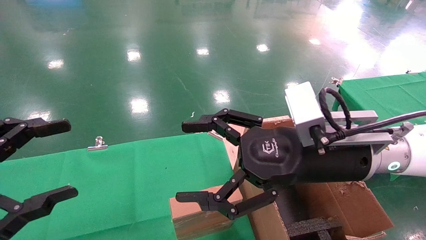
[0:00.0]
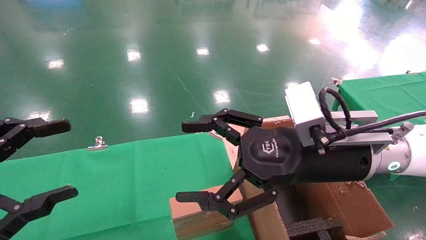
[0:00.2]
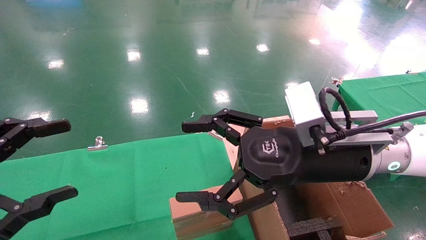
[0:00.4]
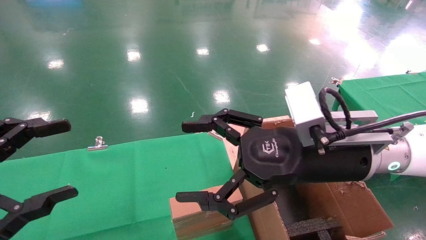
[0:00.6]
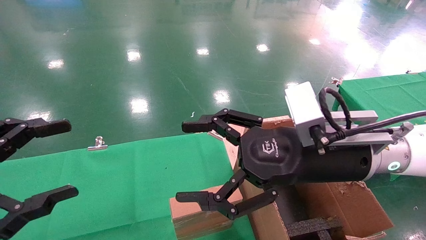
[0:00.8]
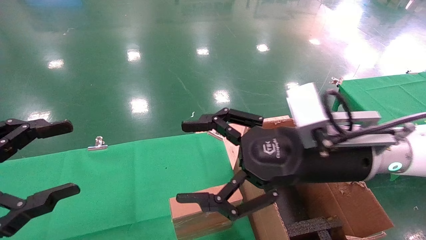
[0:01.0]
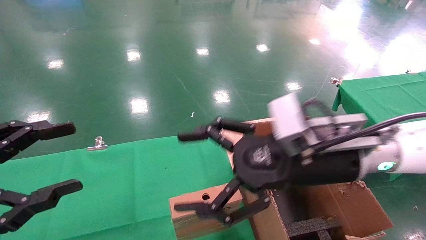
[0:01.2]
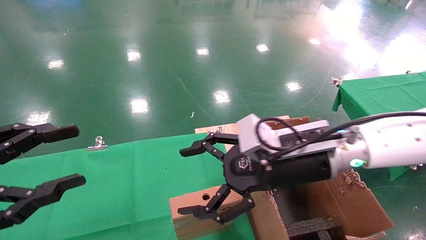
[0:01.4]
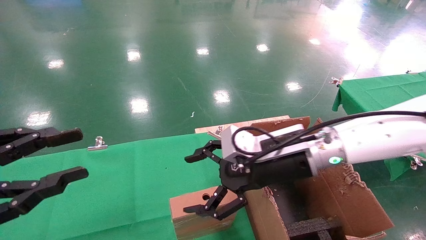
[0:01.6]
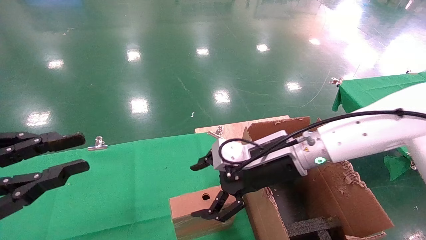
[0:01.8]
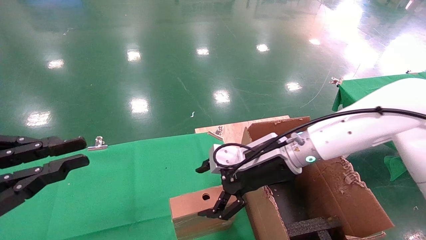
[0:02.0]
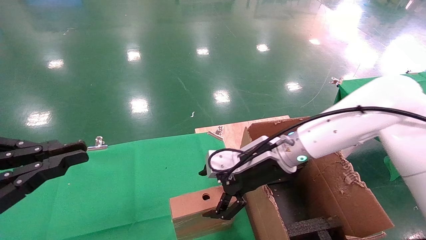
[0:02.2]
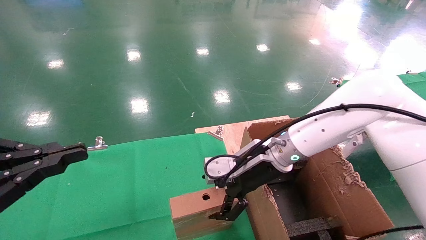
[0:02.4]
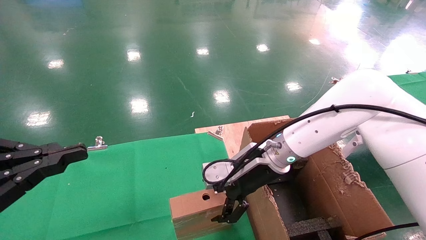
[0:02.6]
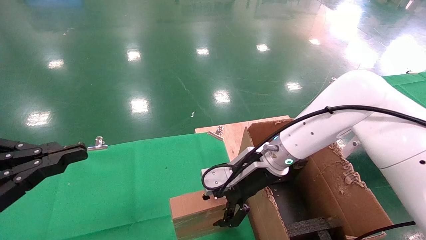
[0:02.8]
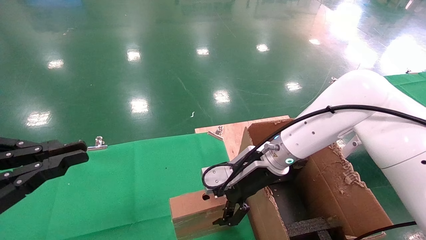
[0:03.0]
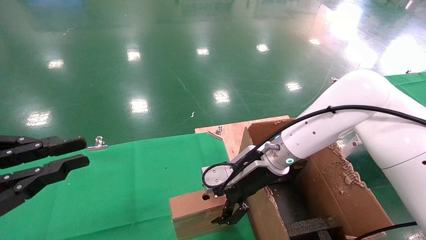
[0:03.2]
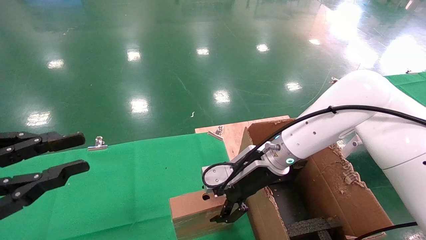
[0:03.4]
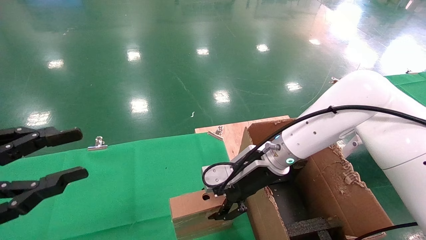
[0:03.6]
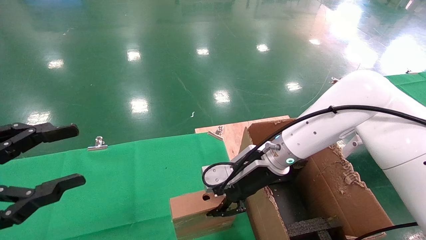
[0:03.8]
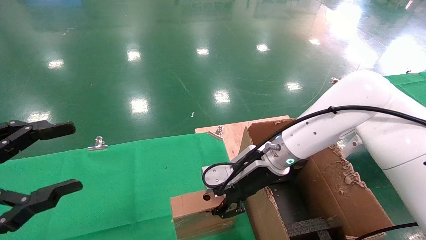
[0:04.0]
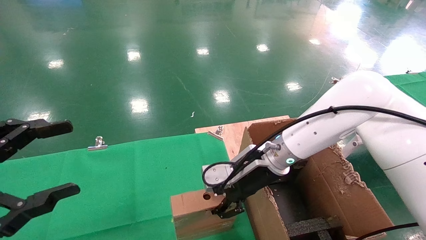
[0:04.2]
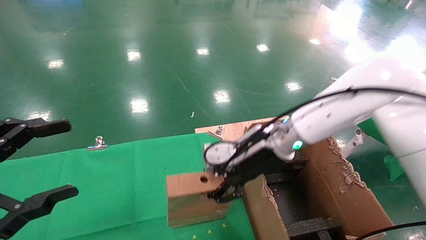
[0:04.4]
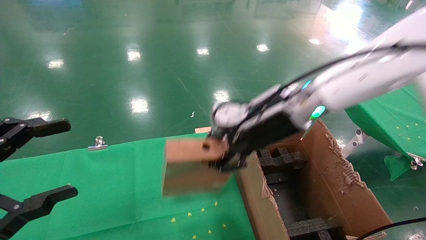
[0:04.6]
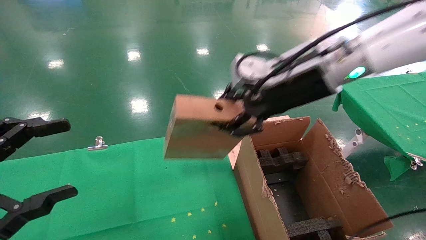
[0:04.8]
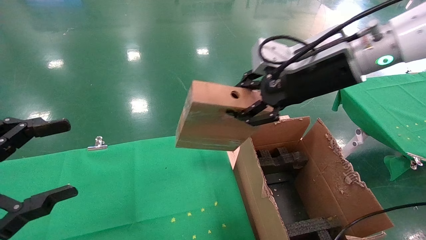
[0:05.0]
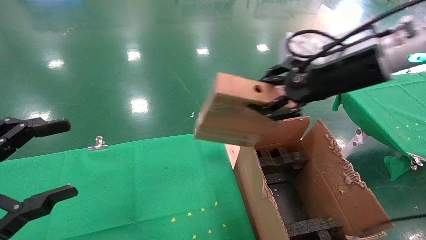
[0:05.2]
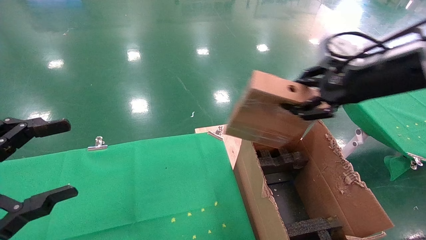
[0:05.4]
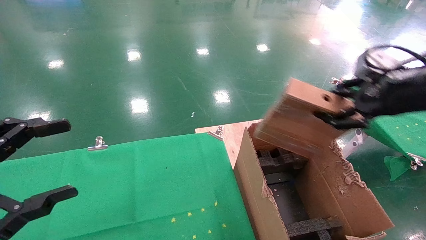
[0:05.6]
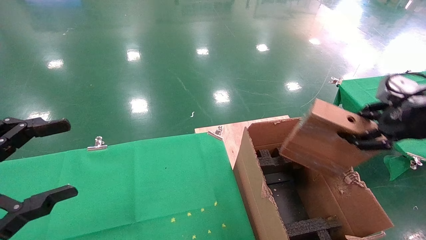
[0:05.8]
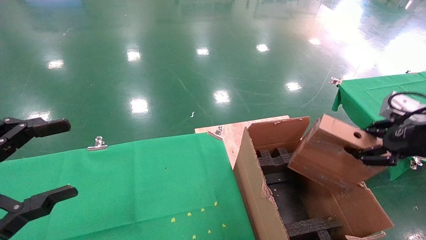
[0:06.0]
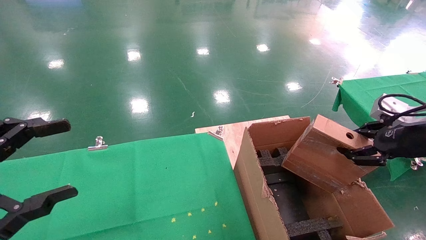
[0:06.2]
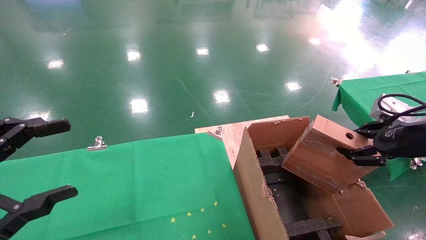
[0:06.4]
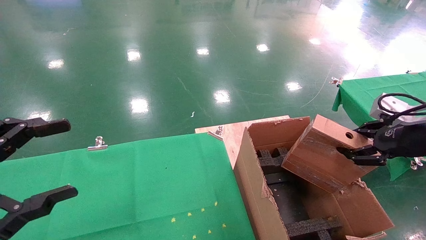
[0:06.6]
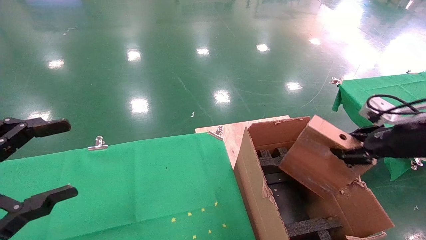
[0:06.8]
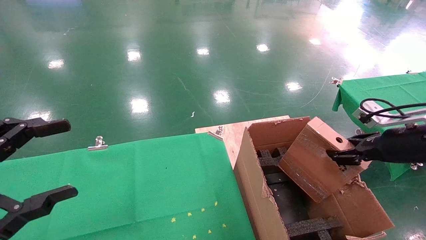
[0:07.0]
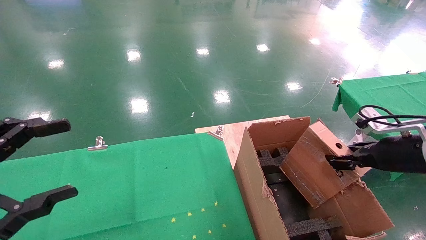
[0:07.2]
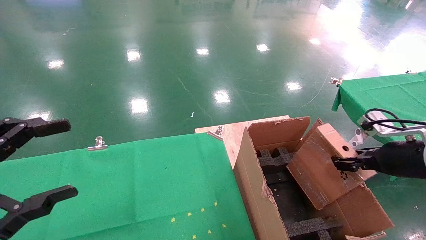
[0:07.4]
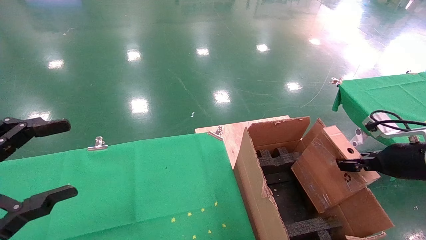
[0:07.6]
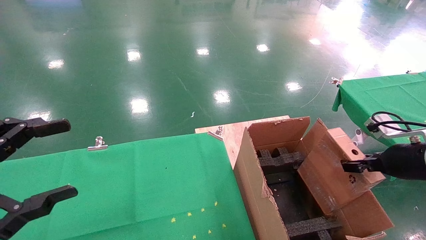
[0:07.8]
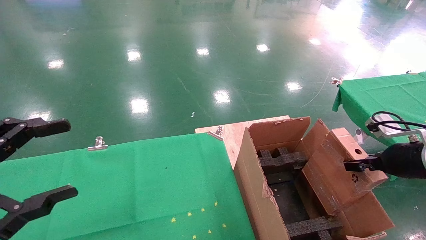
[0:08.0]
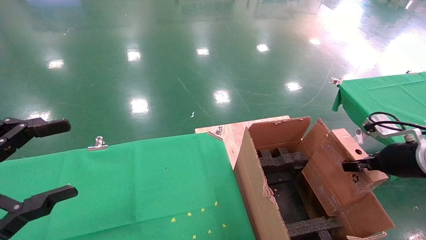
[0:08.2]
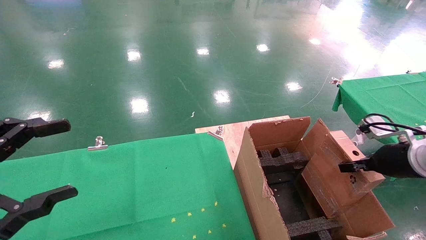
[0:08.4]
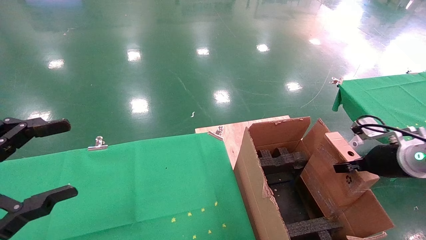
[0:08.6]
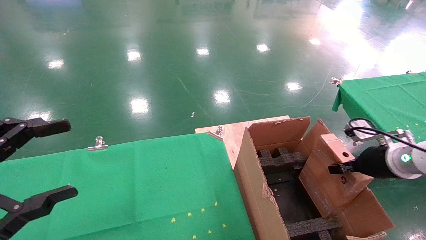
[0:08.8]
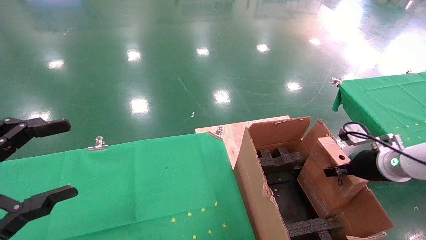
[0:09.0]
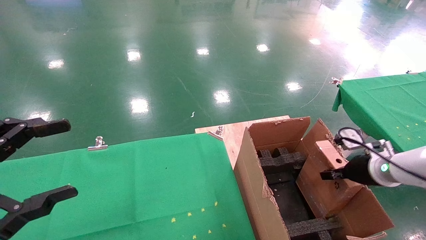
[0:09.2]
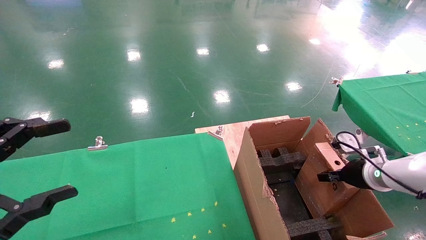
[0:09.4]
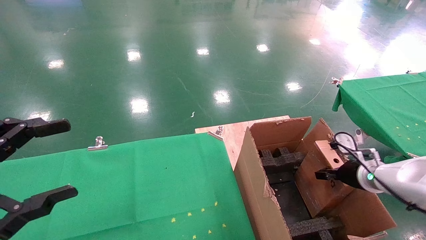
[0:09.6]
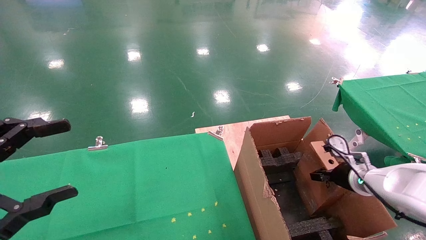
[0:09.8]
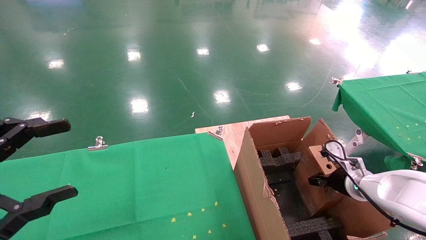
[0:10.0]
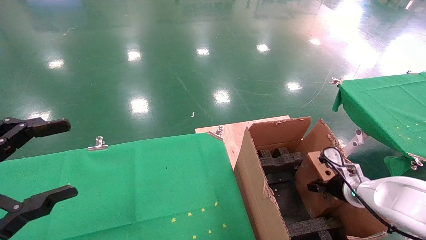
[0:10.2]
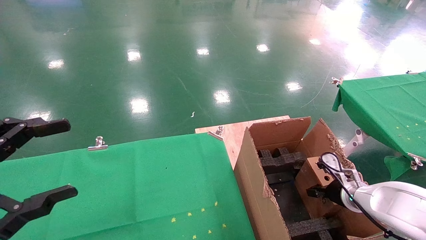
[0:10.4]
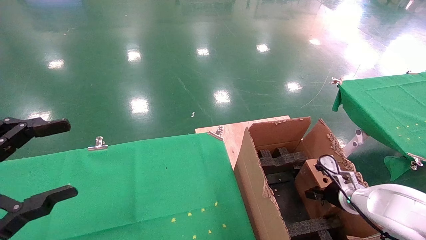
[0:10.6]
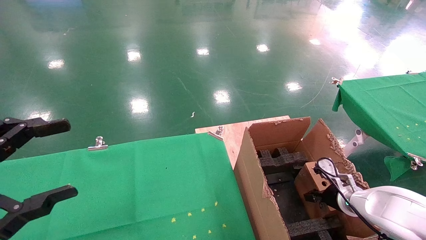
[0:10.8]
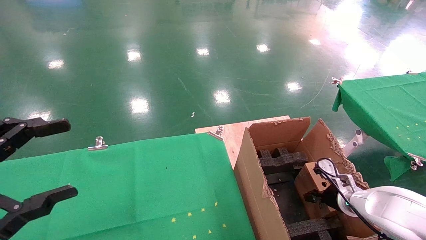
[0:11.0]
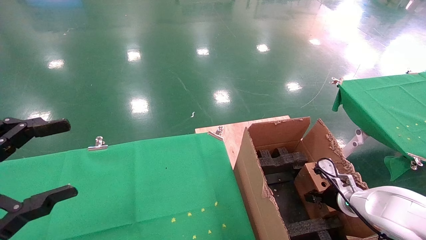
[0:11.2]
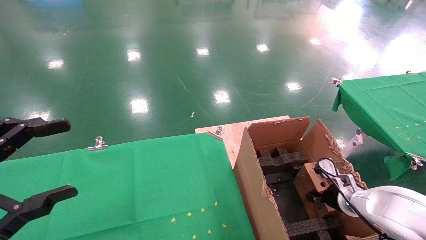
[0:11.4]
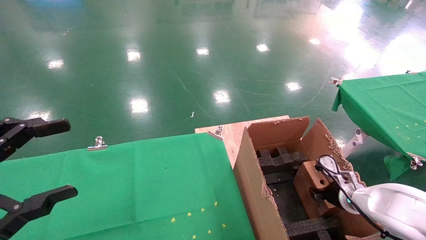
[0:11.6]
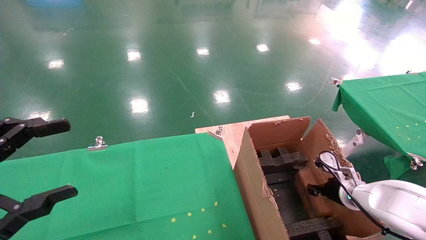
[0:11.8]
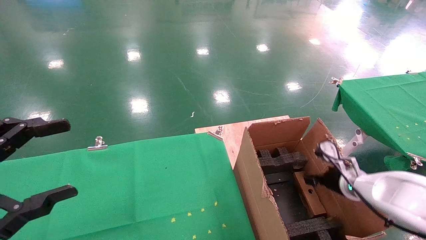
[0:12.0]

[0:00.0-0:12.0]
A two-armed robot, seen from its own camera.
Task of the whole recording: using a robotic arm to pick up a cardboard box and palace it the carton.
Step, 0:01.2 to 0:03.8: Pick up the mouse and the power cord paper box.
0:00.0 to 0:01.6: The right gripper goes roughly 5 cm forward. The left gripper closes.
0:01.6 to 0:03.0: The left gripper closes up, while the right gripper shifts about 5 cm forward.
0:03.0 to 0:04.4: The right gripper moves upward, roughly 5 cm, and closes its fingers. Meanwhile the left gripper opens up.
0:04.4 to 0:06.0: The right gripper shifts some 30 cm to the right and backward.
0:06.0 to 0:07.6: The right gripper moves downward, some 10 cm.
0:07.6 to 0:09.0: The right gripper heads forward, covering about 5 cm.
0:09.0 to 0:10.4: The right gripper shifts about 10 cm downward.
0:10.4 to 0:12.0: The right gripper changes place by some 5 cm, and opens.

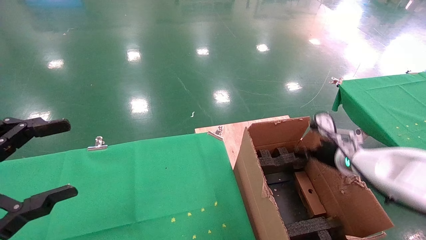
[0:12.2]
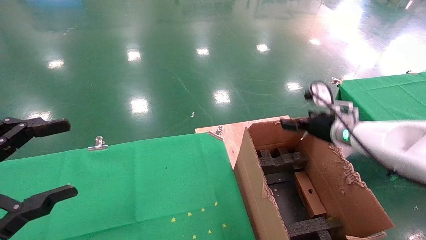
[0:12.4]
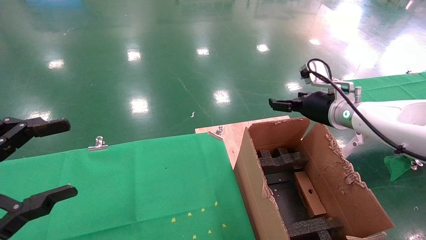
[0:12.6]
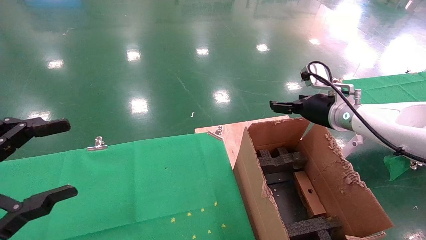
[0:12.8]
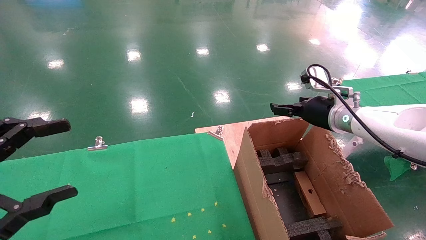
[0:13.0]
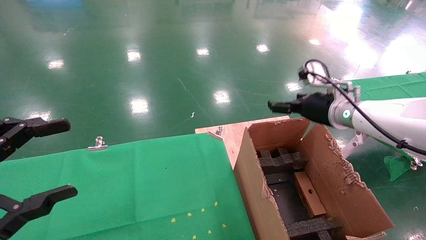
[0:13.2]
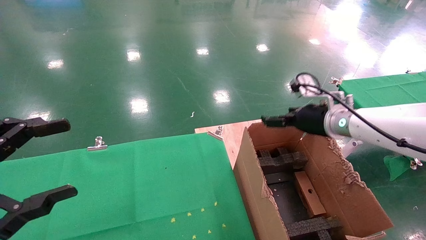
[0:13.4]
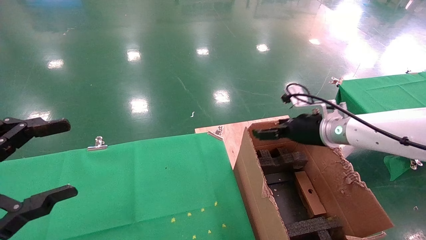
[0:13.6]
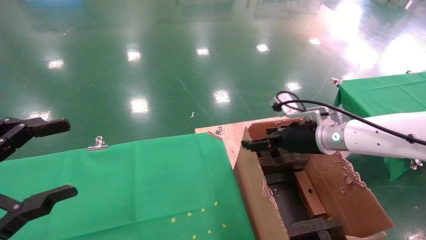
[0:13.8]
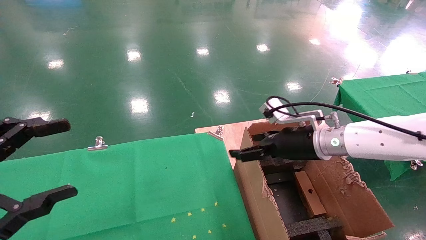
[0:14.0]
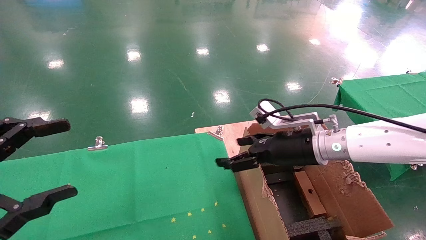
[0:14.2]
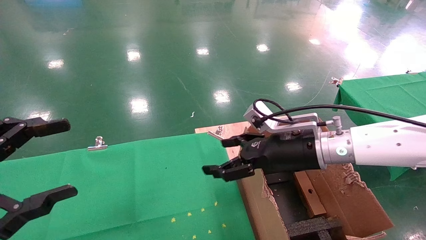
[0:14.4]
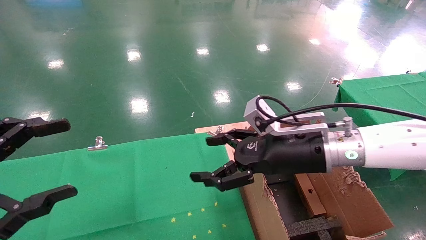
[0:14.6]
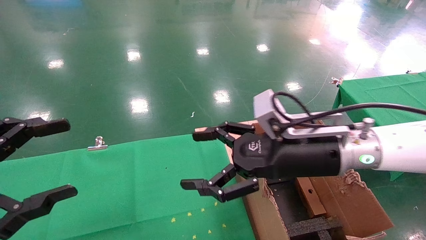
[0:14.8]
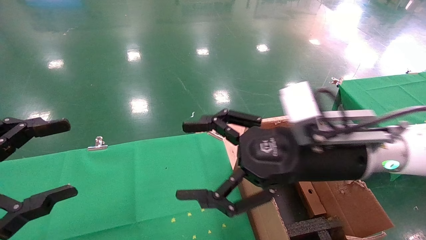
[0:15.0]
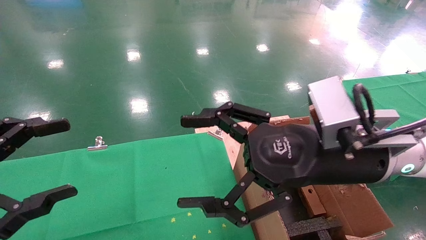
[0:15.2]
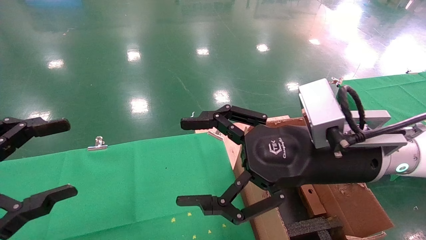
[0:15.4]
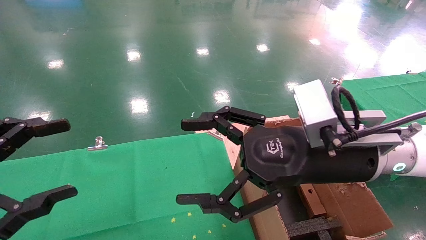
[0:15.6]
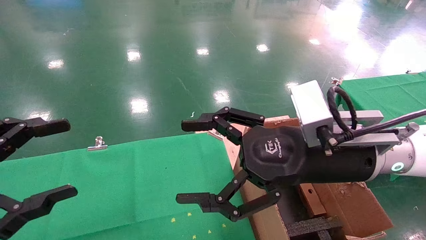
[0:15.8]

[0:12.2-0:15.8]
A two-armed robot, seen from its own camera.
Task of the whole recording: using a robotic arm to pick up a cardboard box and palace it the carton.
0:12.2 to 0:14.0: The right gripper shifts roughly 10 cm to the left and upward.
0:14.0 to 0:15.8: The right gripper goes approximately 15 cm backward, upward and to the left.

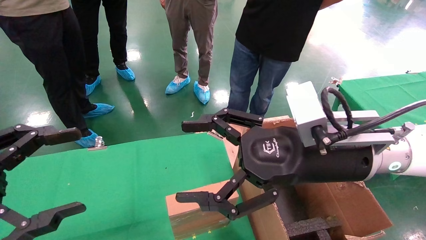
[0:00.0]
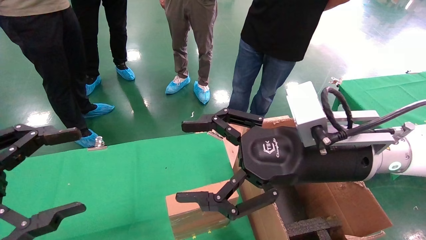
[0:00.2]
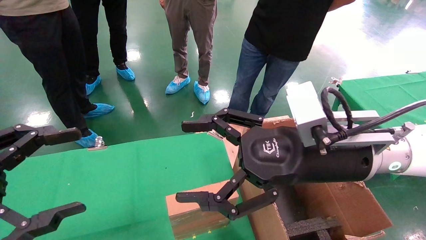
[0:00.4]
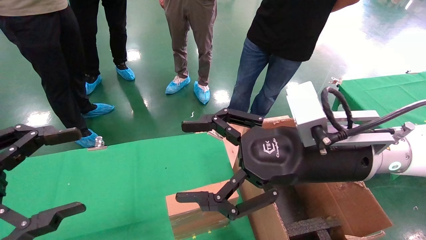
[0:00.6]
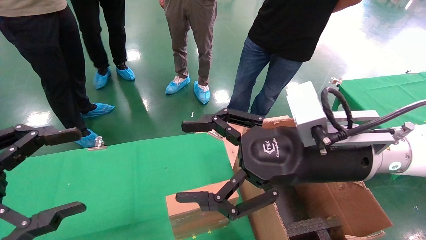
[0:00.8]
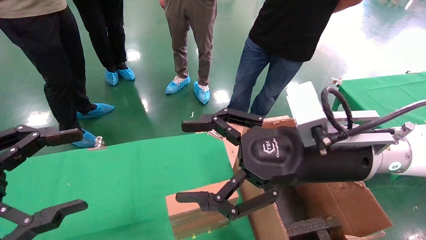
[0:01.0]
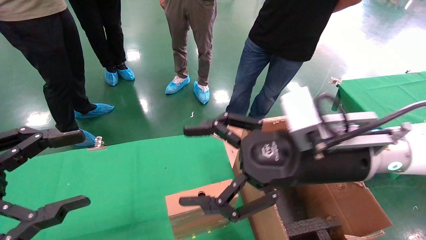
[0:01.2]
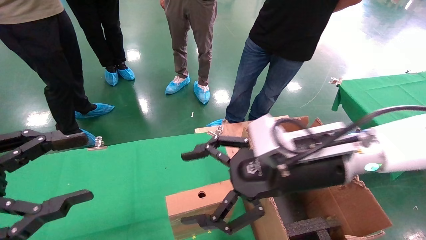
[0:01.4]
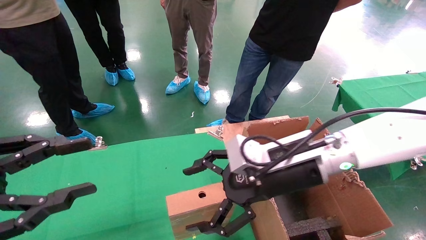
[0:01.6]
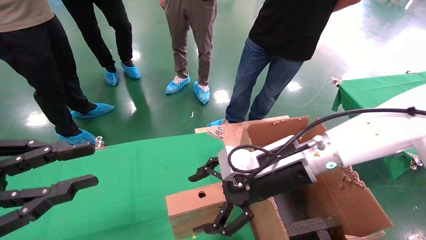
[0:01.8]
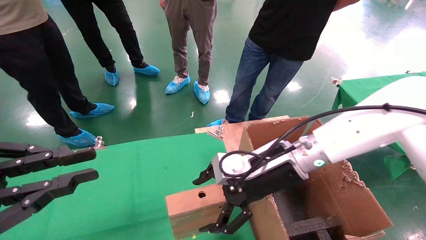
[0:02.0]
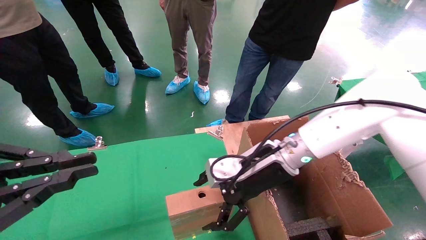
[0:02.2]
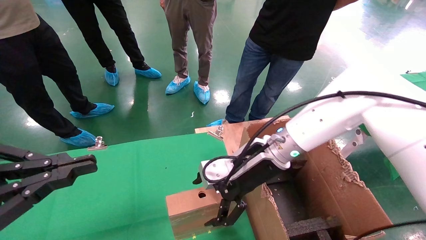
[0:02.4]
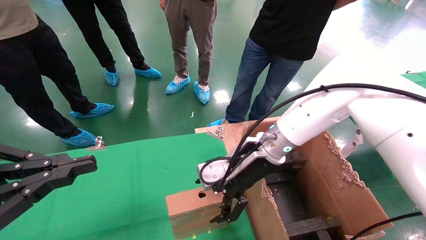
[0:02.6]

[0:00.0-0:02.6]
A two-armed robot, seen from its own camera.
Task of the whole recording: using a robotic arm to pick up a cardboard box and palace it the carton.
0:00.0 to 0:01.2: The grippers stay close to where they were, moving slightly.
0:01.2 to 0:02.6: The right gripper heads forward and to the left, covering approximately 15 cm; the left gripper closes.
